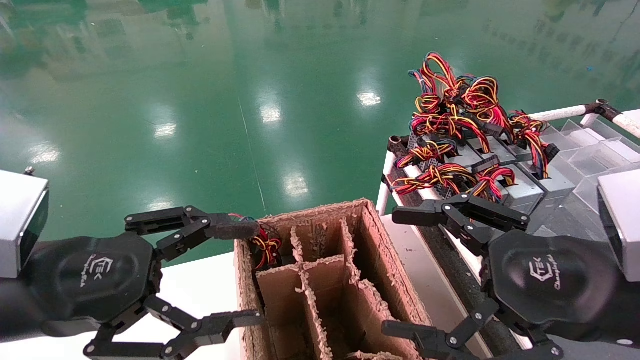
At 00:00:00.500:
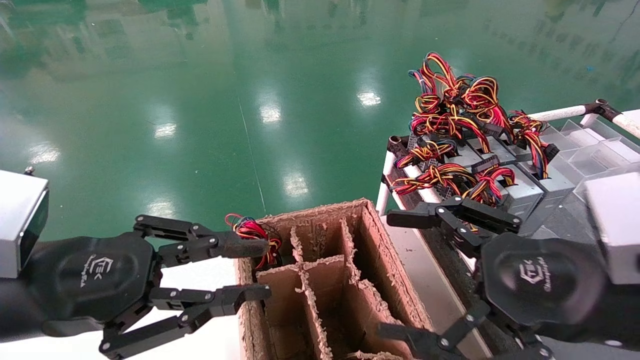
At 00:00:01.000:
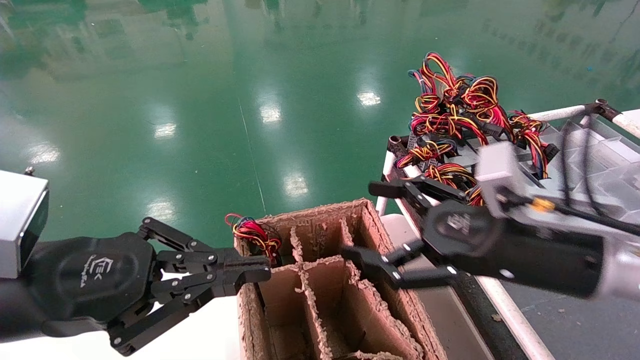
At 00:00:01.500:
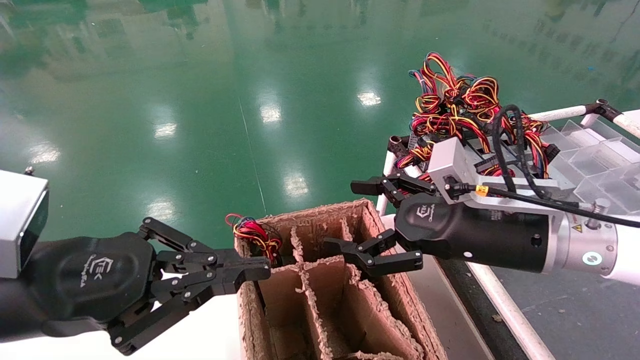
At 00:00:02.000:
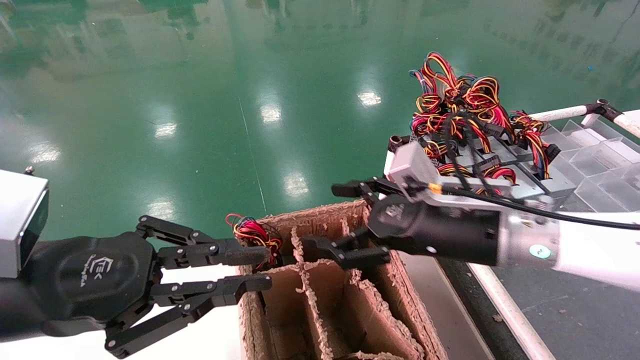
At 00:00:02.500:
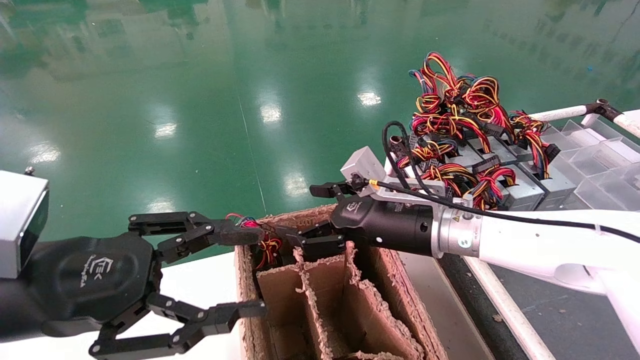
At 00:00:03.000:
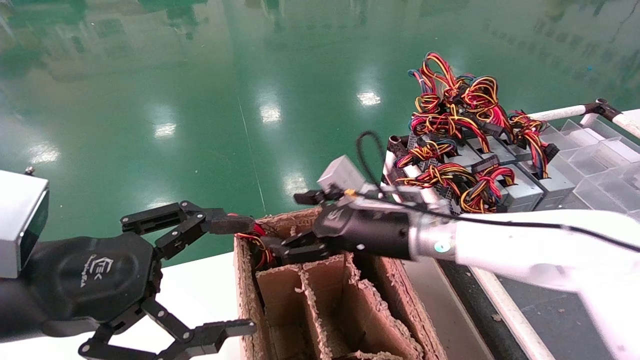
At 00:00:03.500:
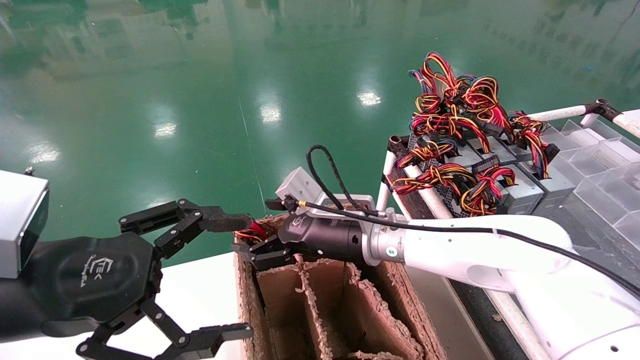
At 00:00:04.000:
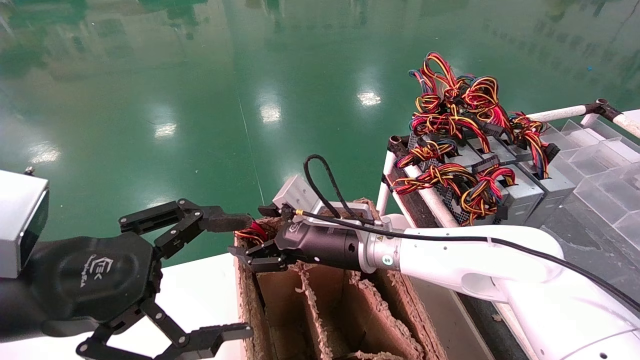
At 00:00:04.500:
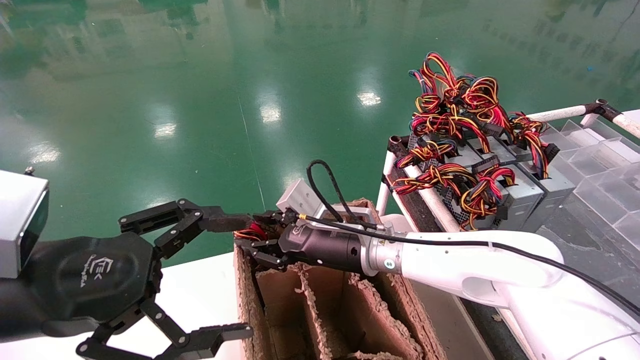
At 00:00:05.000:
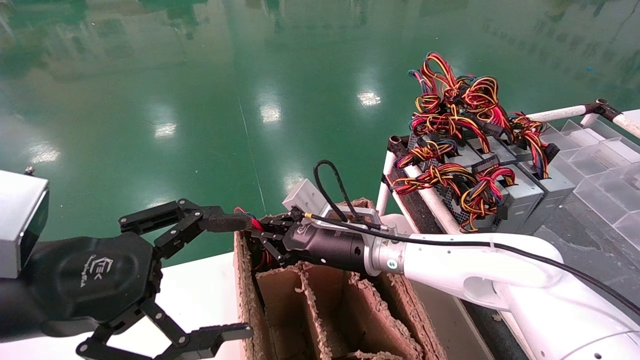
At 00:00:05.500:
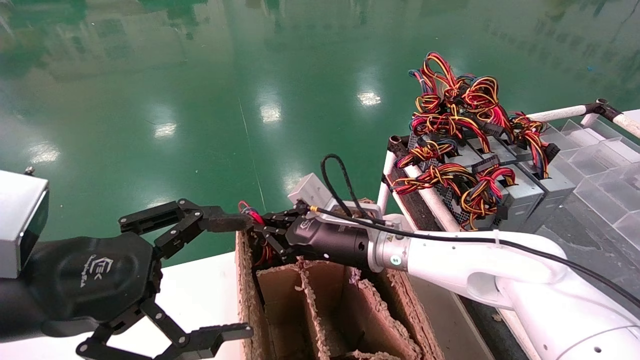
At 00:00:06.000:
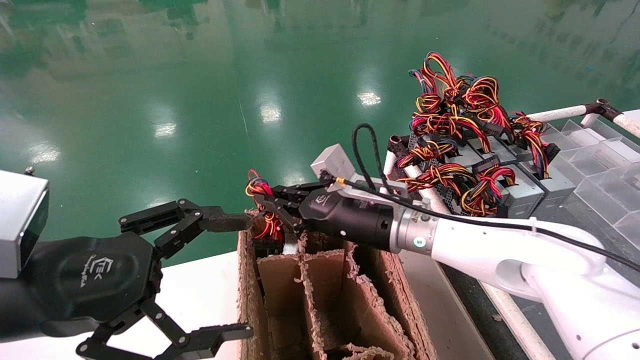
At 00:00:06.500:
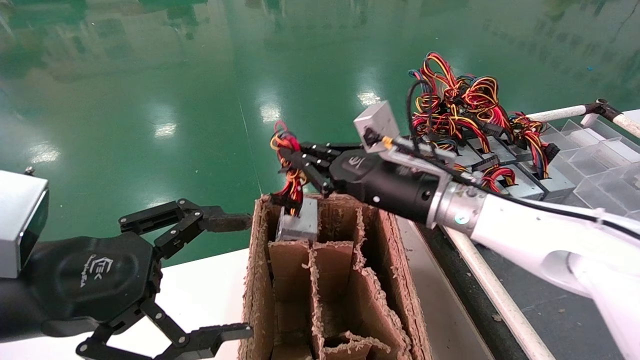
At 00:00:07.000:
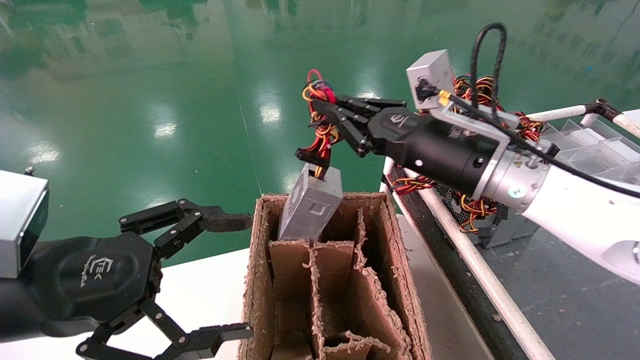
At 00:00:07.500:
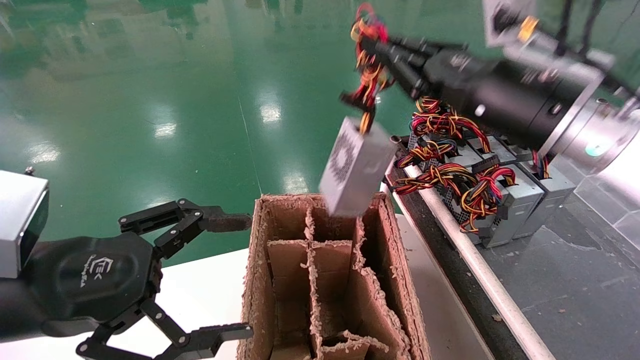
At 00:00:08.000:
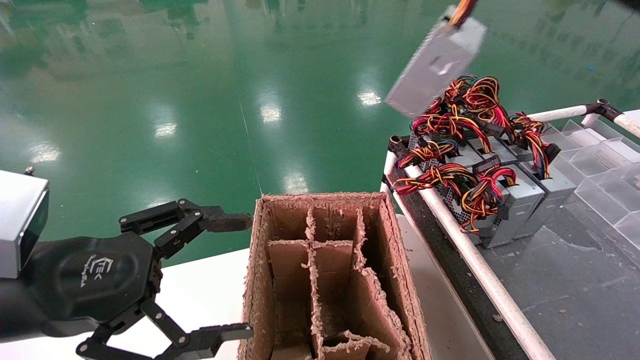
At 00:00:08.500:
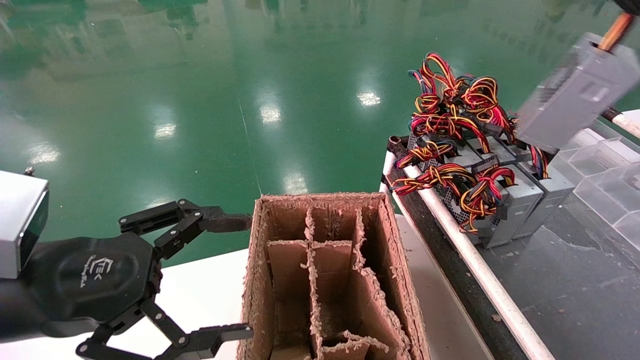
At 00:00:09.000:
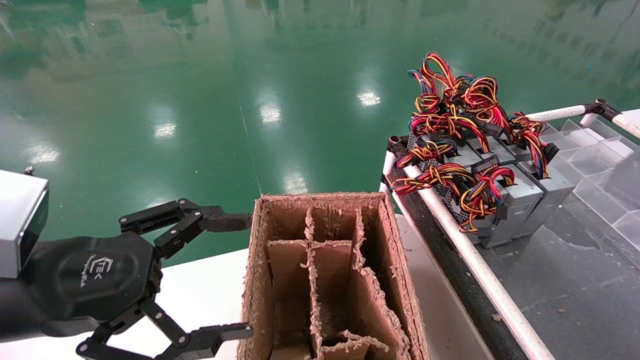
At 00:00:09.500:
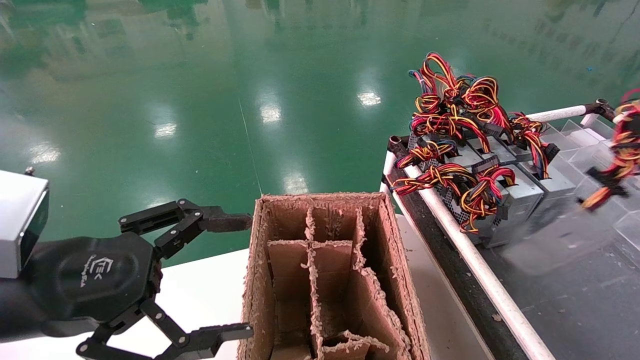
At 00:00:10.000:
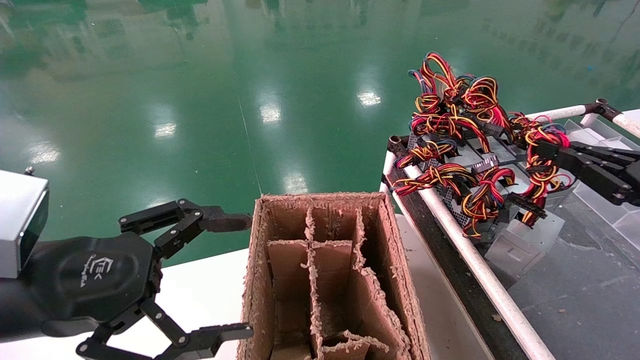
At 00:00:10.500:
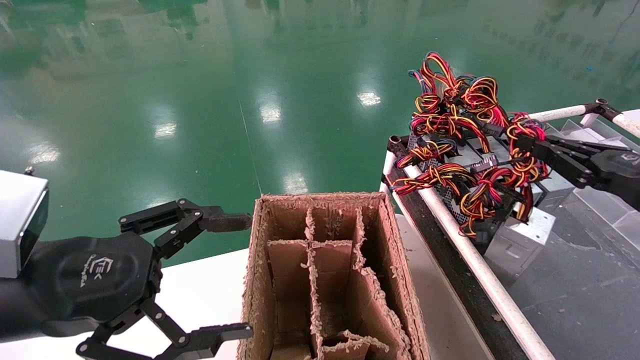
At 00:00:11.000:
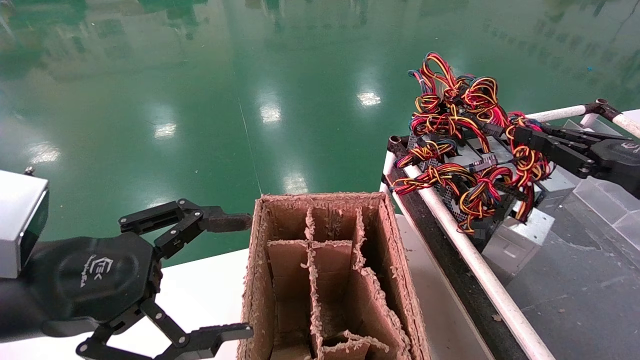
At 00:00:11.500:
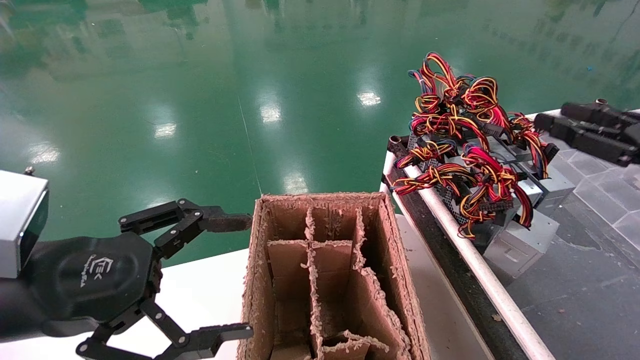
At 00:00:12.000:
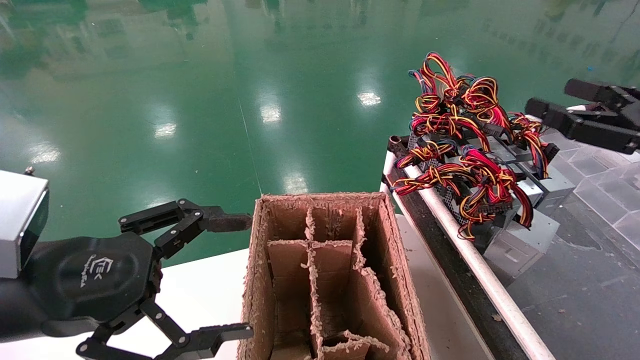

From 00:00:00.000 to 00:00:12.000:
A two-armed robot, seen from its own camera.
Step, from 00:00:01.500 to 00:00:05.000: Grab and lift the power supply from the large box.
Step, from 00:00:05.500 to 00:00:11.000: Place the power supply on the operating table.
From 00:00:00.000 to 00:00:02.000: The right gripper goes about 15 cm forward and to the left. The left gripper closes.
From 00:00:02.000 to 00:00:04.000: The right gripper shifts about 15 cm to the left, forward and downward; the left gripper opens up.
From 00:00:04.000 to 00:00:06.000: The right gripper ends up approximately 5 cm from where it was, and closes its fingers.
From 00:00:06.000 to 00:00:08.000: The right gripper travels upward, to the right and backward by about 35 cm.
From 00:00:08.000 to 00:00:10.000: The right gripper goes roughly 20 cm downward and to the right.
From 00:00:10.000 to 00:00:12.000: The right gripper shifts by some 5 cm, and opens.

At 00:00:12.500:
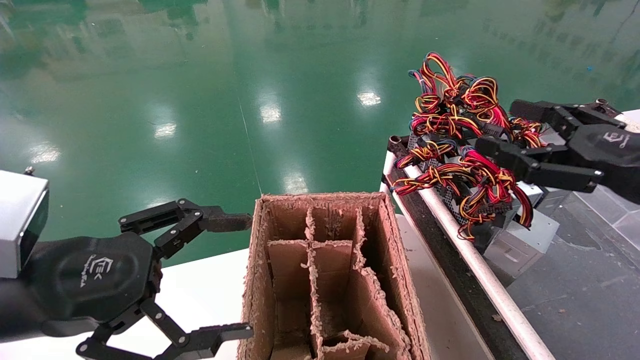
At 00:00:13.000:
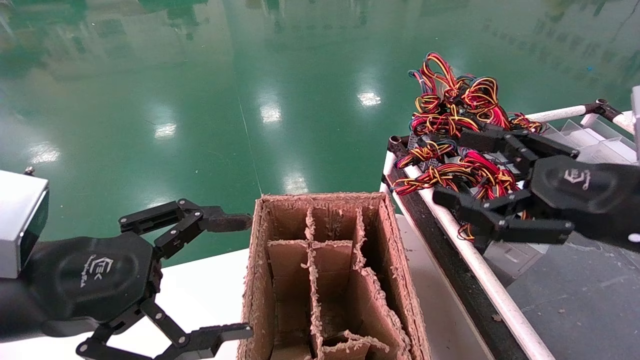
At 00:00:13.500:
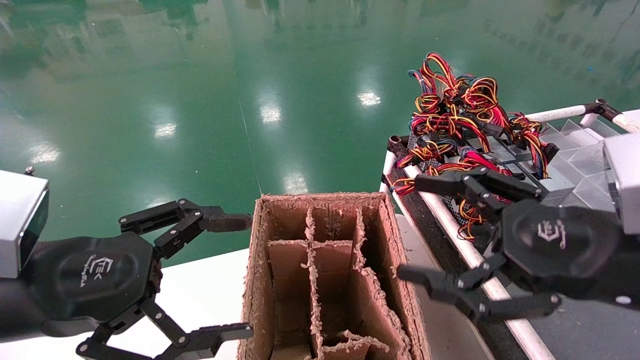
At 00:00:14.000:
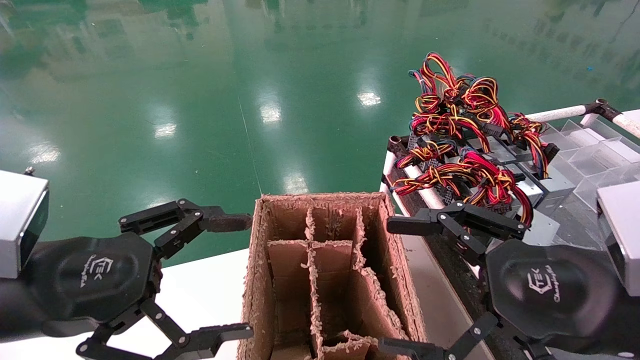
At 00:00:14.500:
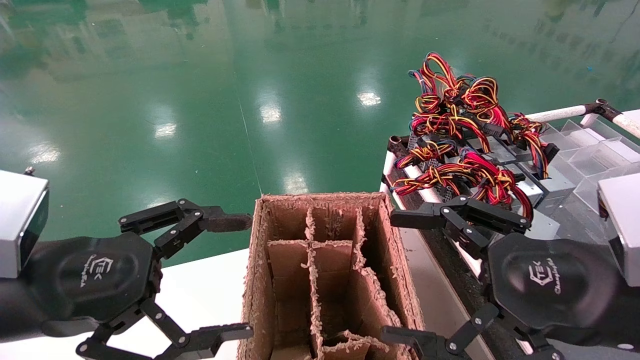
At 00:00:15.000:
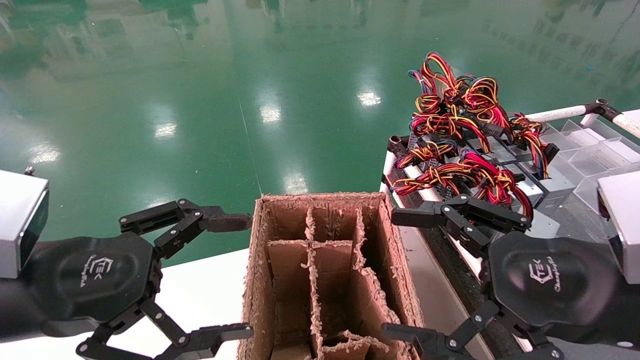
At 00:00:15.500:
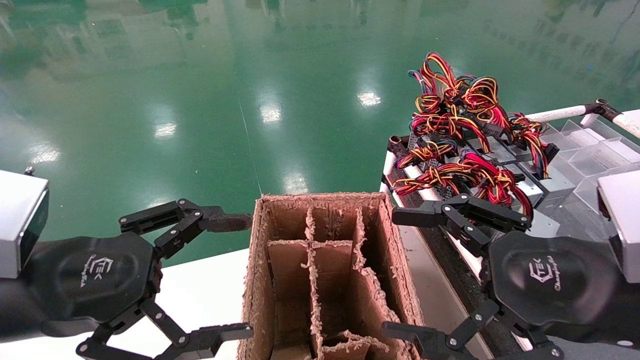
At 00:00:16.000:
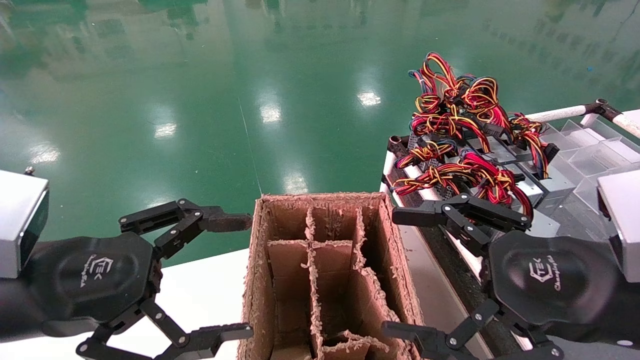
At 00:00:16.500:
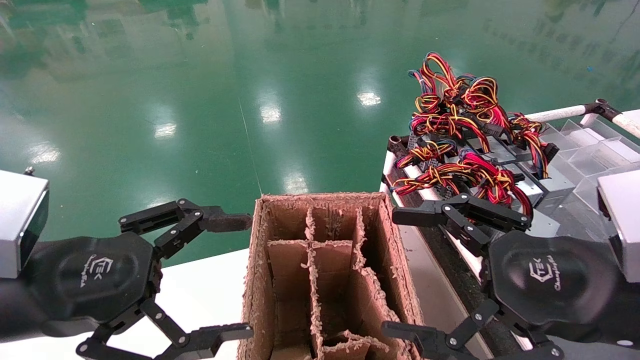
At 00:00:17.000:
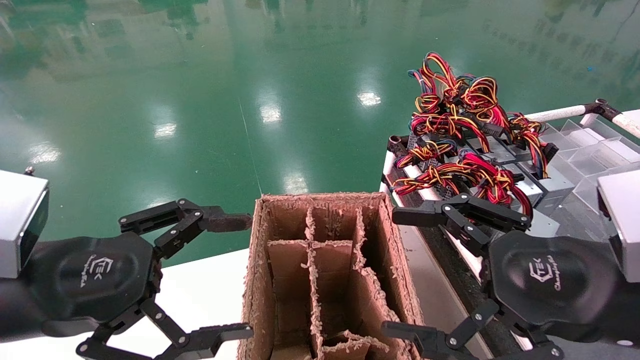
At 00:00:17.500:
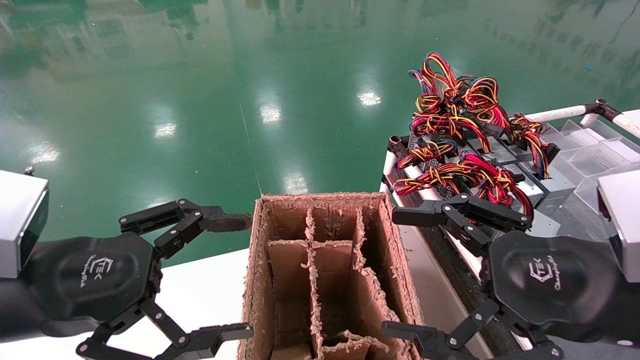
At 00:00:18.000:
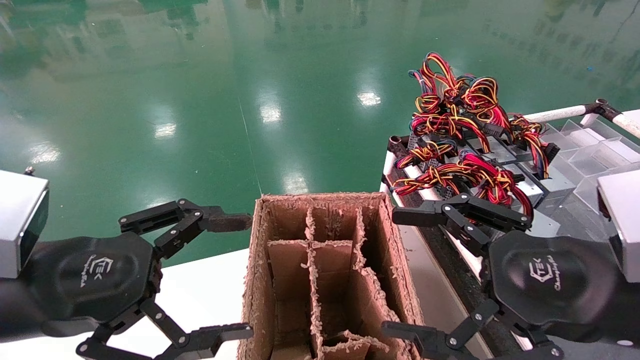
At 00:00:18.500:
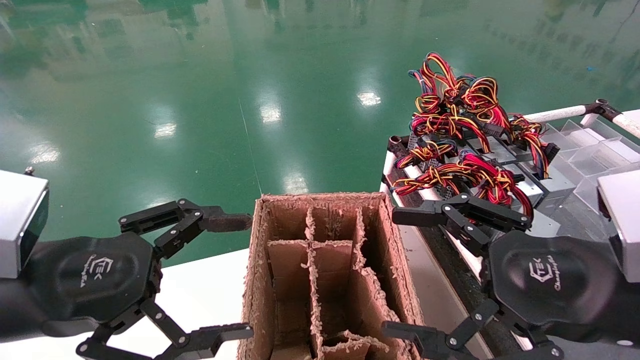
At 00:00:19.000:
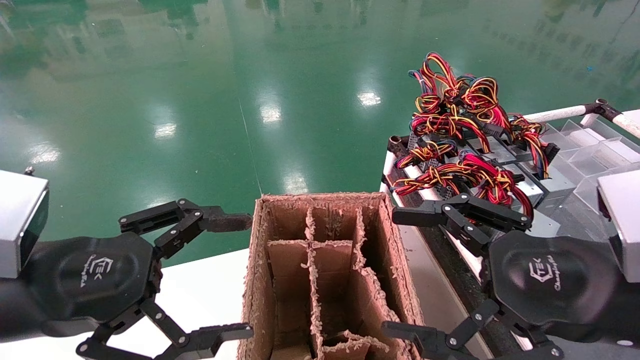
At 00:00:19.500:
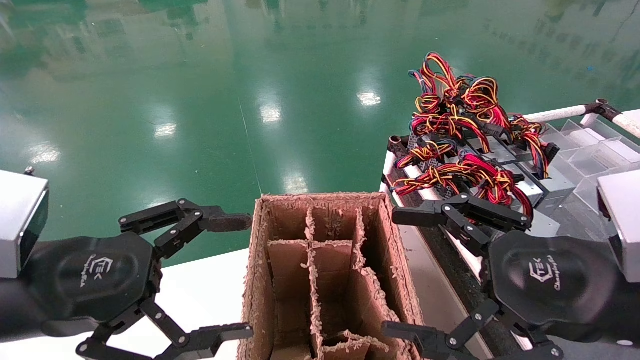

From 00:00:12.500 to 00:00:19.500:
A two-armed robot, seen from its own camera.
From 00:00:12.500 to 00:00:14.500: The right gripper is displaced to the left and backward by approximately 10 cm.
From 00:00:14.500 to 00:00:19.500: The two grippers keep their place.
